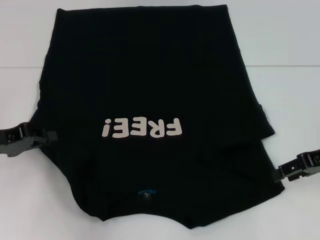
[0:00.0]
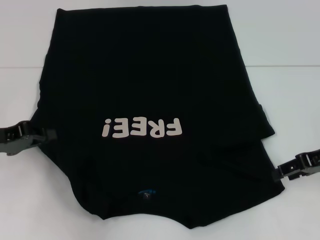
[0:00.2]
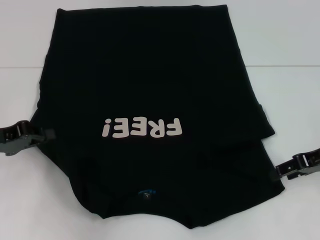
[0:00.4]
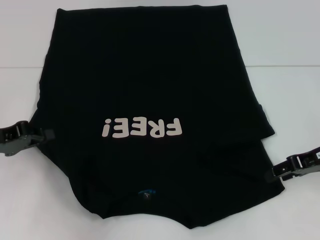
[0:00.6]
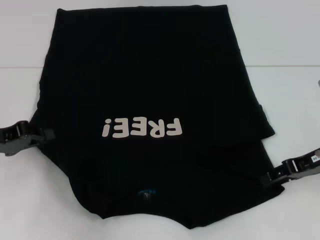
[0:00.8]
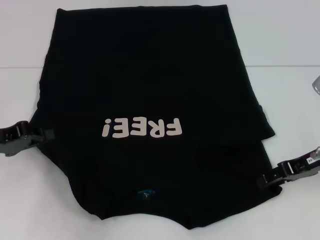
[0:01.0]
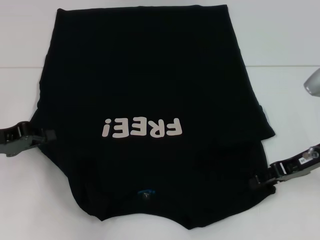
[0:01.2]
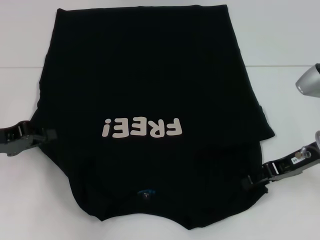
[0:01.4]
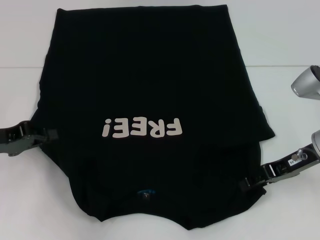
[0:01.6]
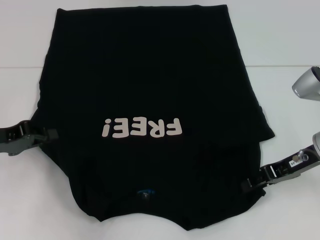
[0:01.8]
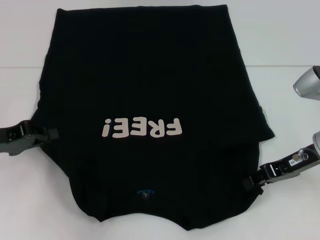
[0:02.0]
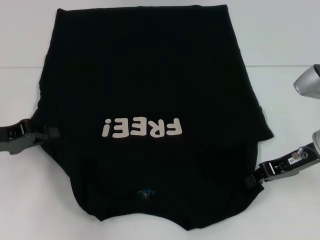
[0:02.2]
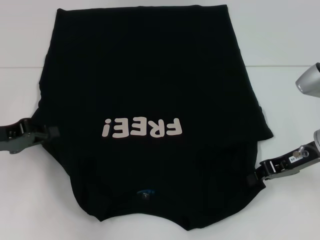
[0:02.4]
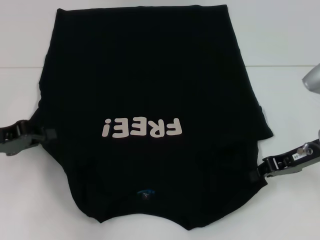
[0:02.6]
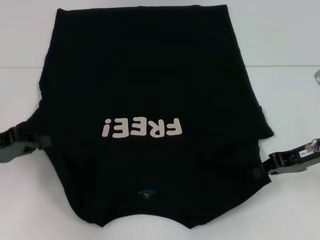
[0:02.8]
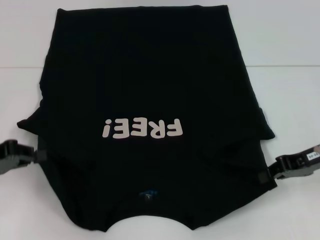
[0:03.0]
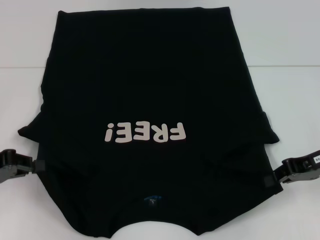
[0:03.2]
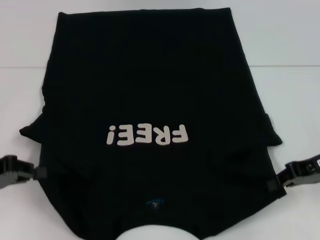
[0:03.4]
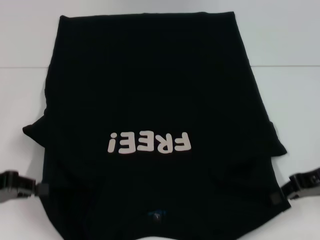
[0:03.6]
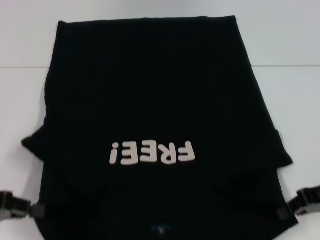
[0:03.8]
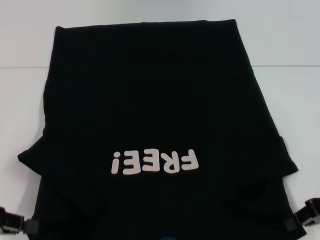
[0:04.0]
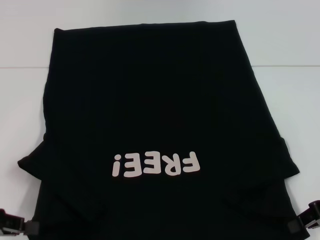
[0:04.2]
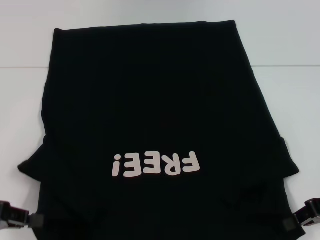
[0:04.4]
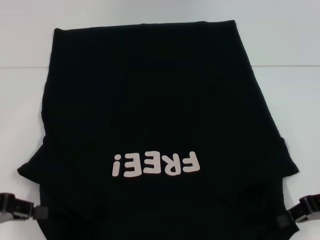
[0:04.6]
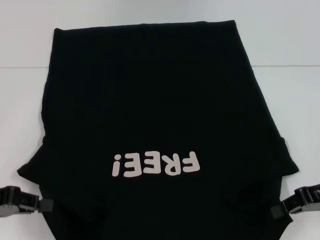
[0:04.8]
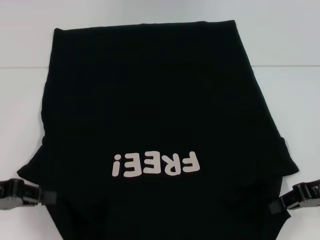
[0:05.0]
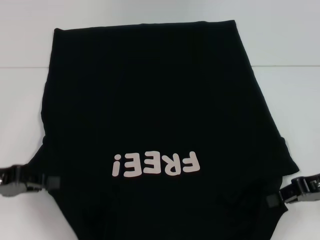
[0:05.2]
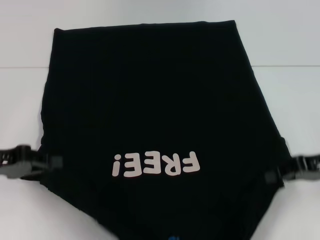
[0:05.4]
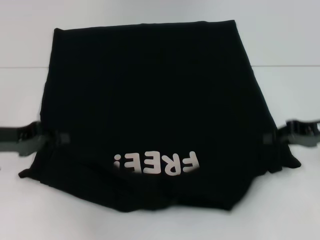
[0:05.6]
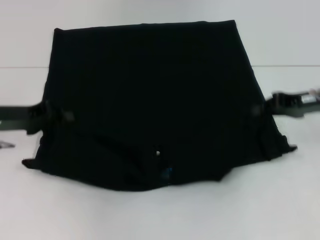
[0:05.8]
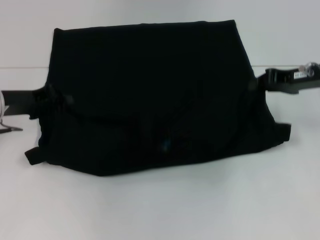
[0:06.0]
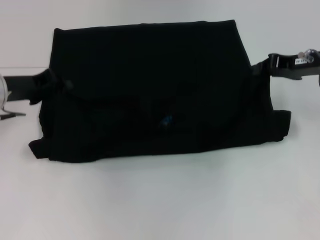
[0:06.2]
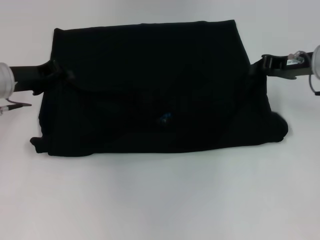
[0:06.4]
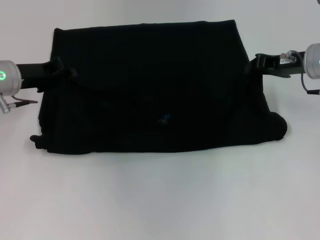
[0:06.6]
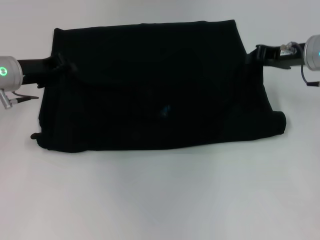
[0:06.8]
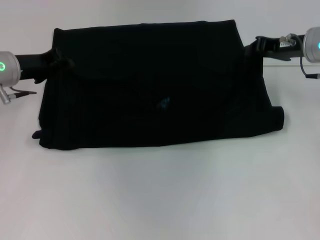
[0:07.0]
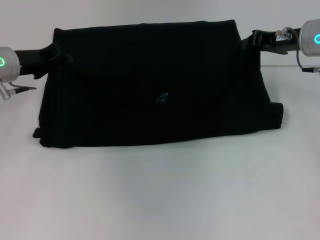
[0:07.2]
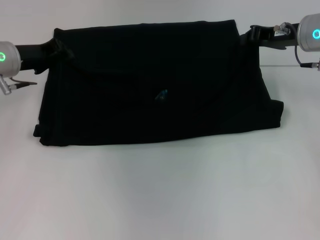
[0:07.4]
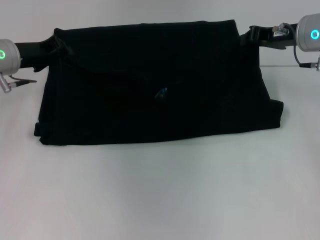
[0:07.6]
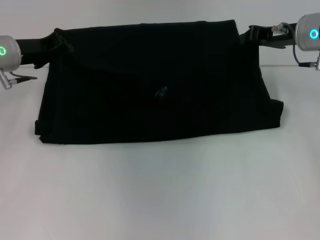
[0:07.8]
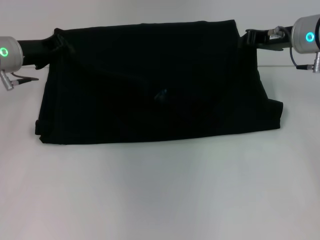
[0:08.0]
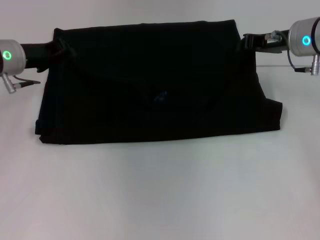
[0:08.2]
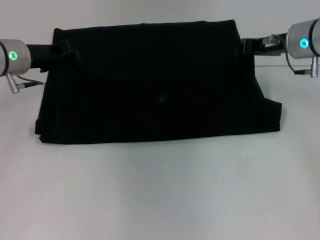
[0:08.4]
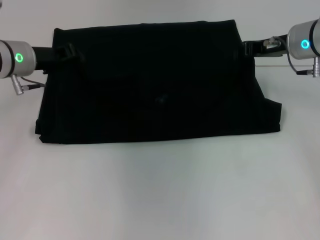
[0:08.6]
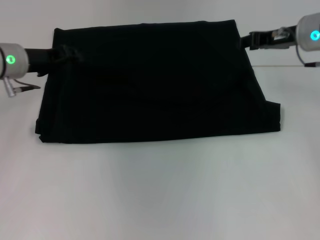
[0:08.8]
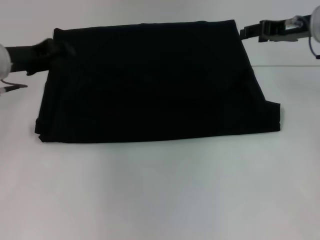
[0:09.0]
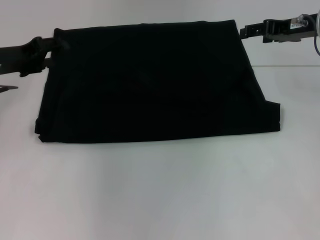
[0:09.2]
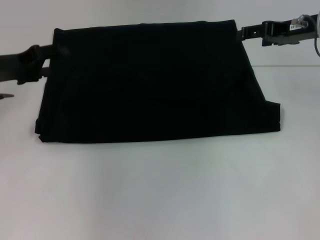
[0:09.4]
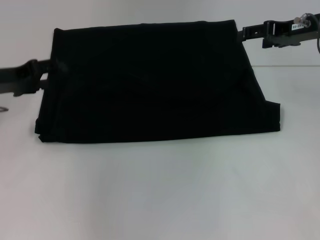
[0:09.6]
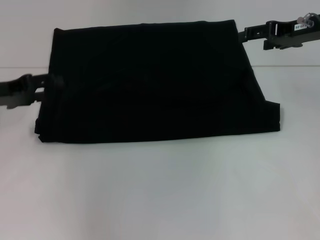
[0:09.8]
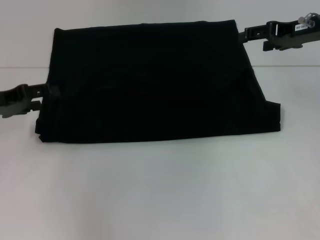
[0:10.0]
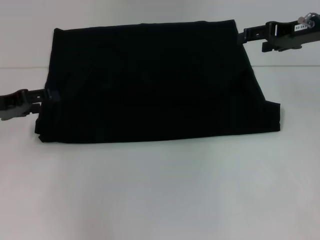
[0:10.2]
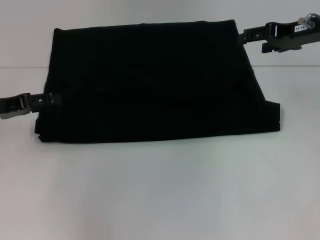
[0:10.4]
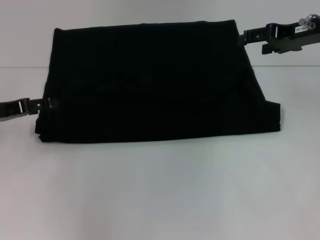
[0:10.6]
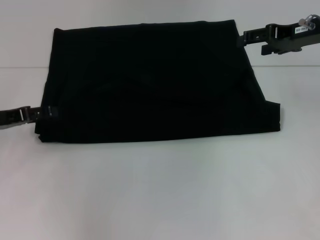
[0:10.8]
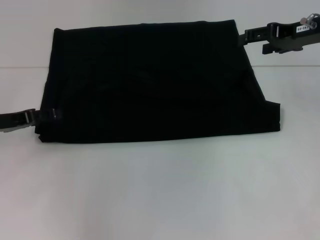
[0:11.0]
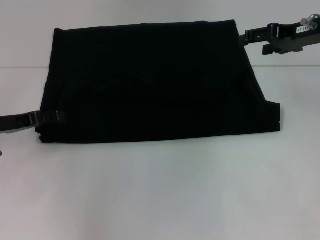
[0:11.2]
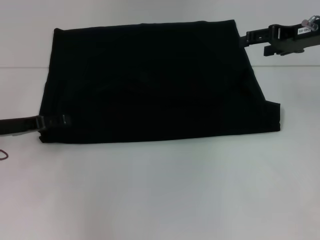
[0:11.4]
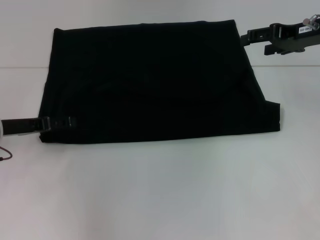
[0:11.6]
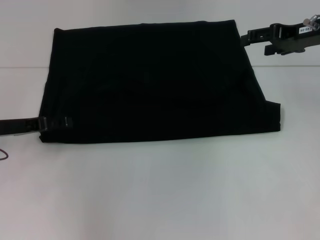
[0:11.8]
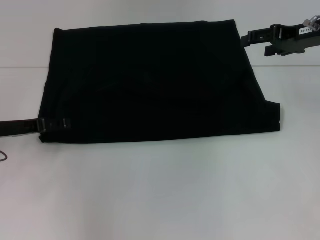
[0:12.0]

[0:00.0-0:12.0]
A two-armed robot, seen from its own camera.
Step, 0.0 to 3.2 s: Grab the bottom left corner with your left hand.
Step, 0.0 to 3.2 s: Grab the bottom right corner with your right hand.
Step, 3.4 to 11.0 s: Fold the clothes with your left hand.
Step, 3.4 to 11.0 s: Fold the clothes with your right hand.
0.0 to 1.6 s: The right gripper moves to the left, approximately 5 cm.
1.6 to 3.0 s: The right gripper closes its fingers.
3.0 to 4.4 s: The right gripper changes place by roughly 5 cm. Meanwhile the left gripper shifts roughly 5 cm backward.
4.4 to 6.0 s: The right gripper travels forward and upward by about 15 cm. Meanwhile the left gripper goes roughly 15 cm forward.
6.0 to 7.6 s: Both grippers travel together forward, approximately 5 cm.
7.6 to 9.0 s: The right gripper opens.
9.0 to 10.4 s: The right gripper opens. The left gripper goes about 5 cm backward, and opens its fingers.
10.4 to 12.0 s: There are only small adjustments of the grippers.

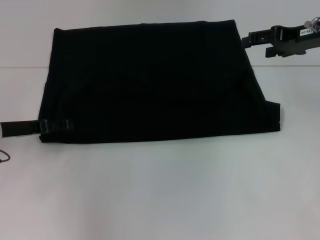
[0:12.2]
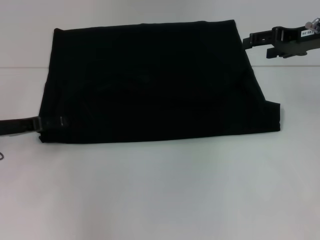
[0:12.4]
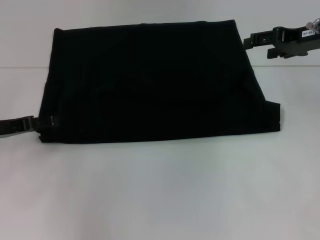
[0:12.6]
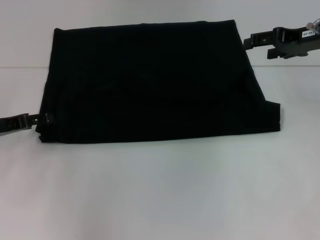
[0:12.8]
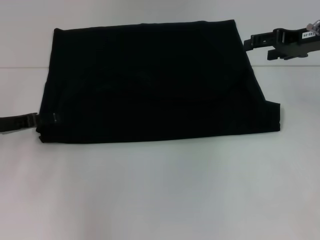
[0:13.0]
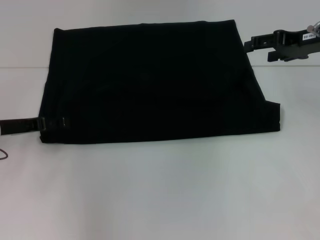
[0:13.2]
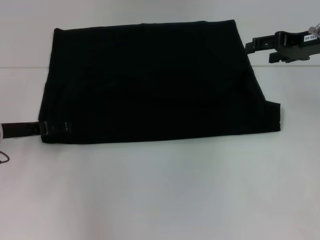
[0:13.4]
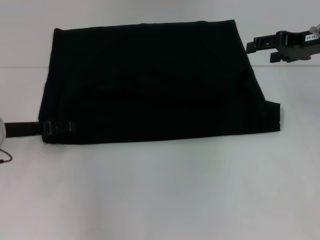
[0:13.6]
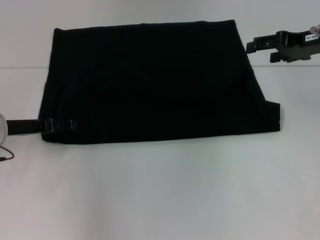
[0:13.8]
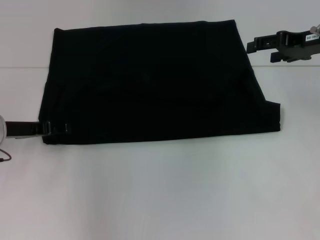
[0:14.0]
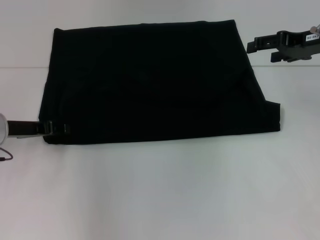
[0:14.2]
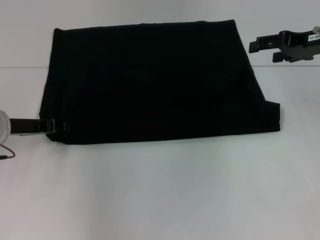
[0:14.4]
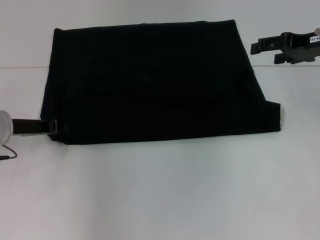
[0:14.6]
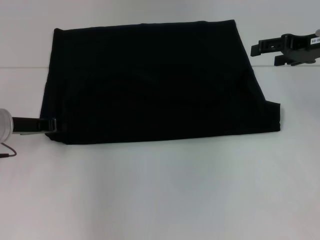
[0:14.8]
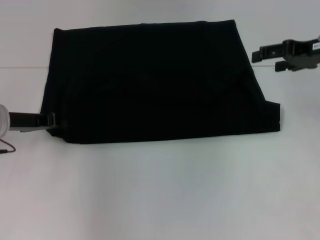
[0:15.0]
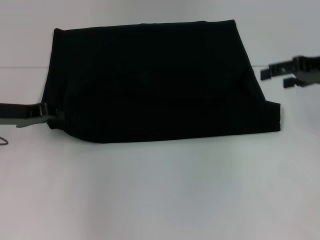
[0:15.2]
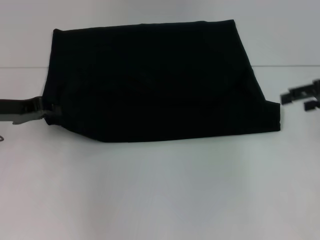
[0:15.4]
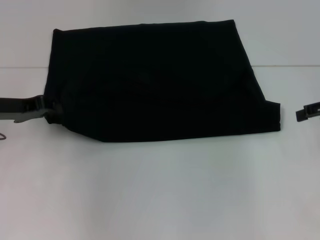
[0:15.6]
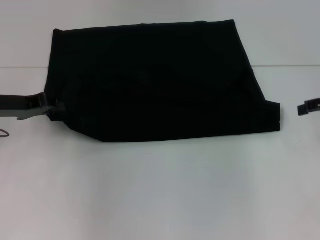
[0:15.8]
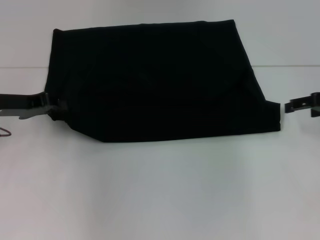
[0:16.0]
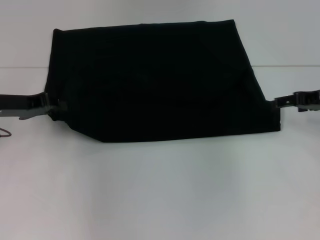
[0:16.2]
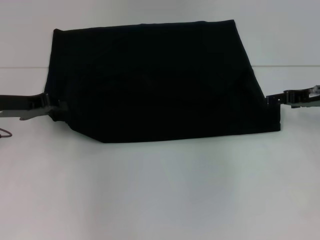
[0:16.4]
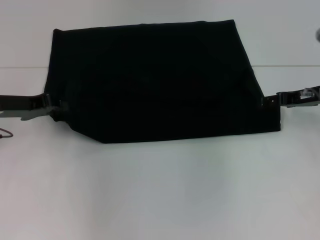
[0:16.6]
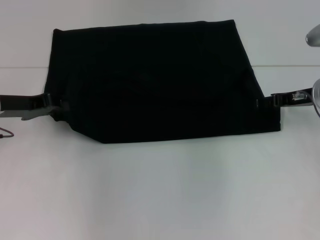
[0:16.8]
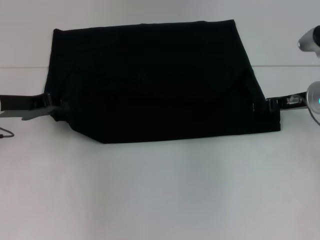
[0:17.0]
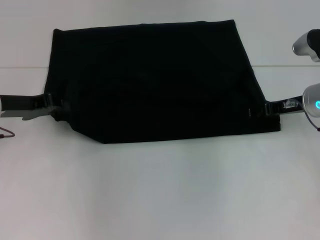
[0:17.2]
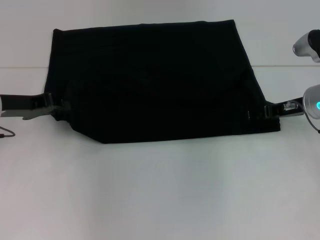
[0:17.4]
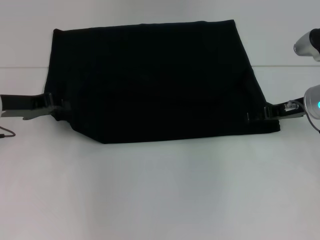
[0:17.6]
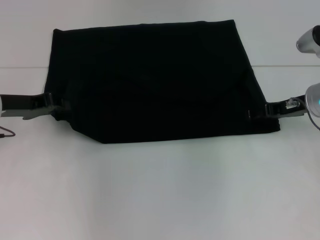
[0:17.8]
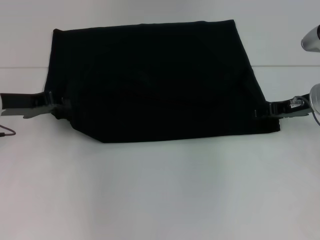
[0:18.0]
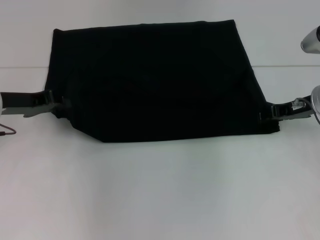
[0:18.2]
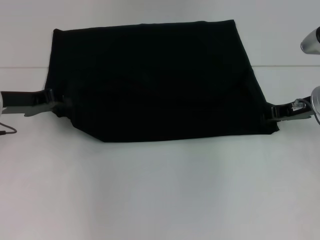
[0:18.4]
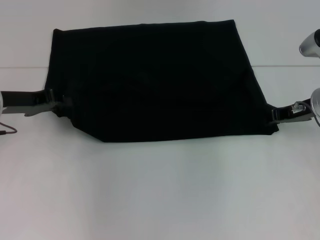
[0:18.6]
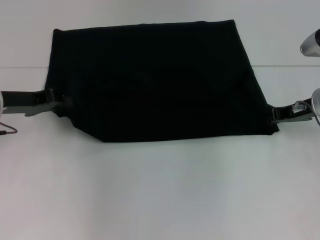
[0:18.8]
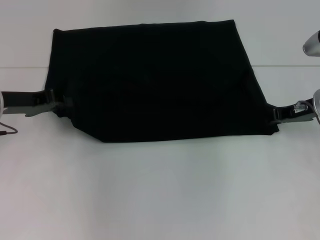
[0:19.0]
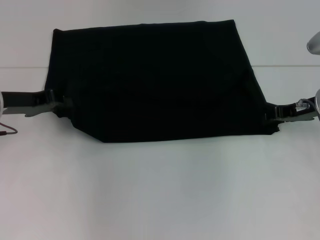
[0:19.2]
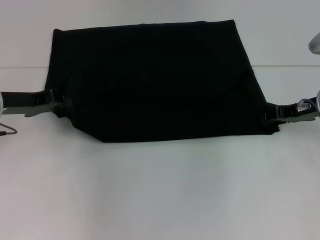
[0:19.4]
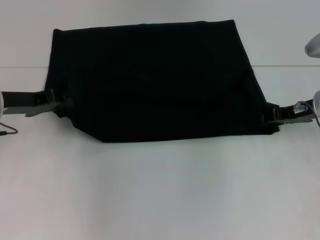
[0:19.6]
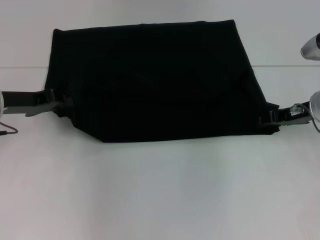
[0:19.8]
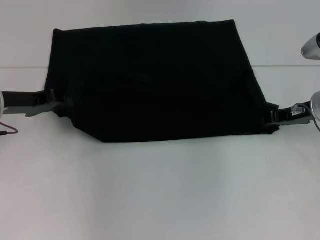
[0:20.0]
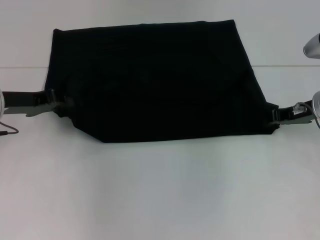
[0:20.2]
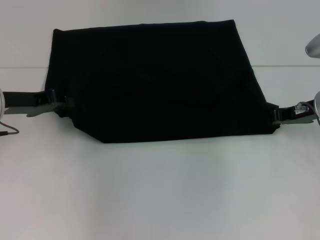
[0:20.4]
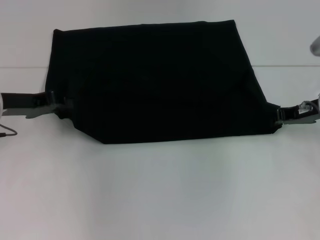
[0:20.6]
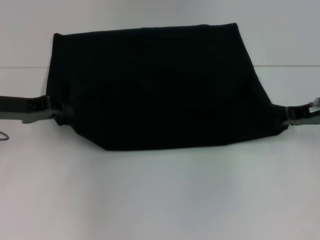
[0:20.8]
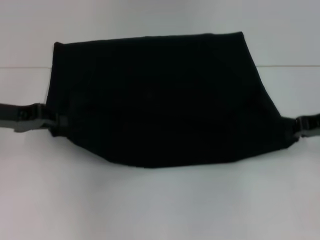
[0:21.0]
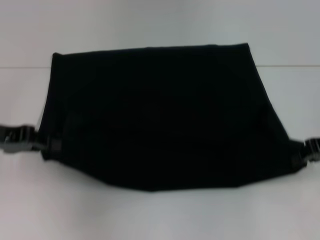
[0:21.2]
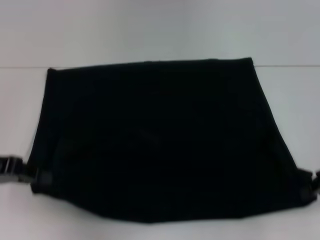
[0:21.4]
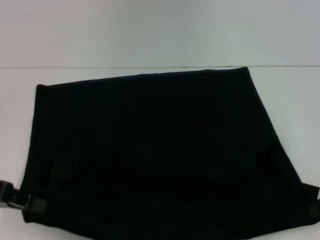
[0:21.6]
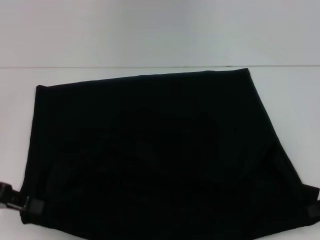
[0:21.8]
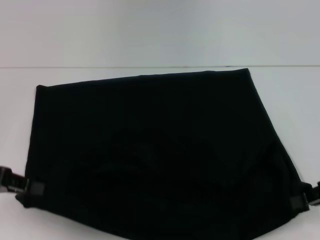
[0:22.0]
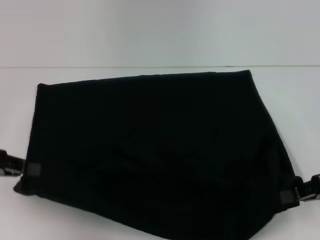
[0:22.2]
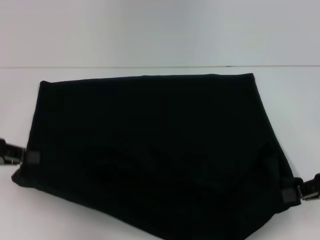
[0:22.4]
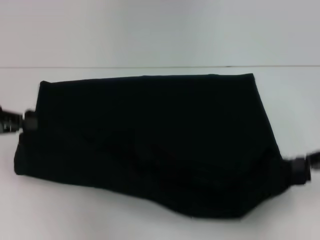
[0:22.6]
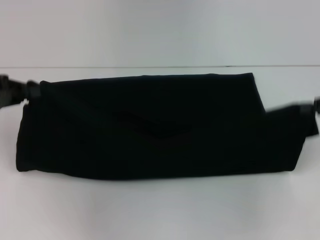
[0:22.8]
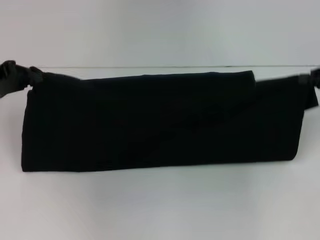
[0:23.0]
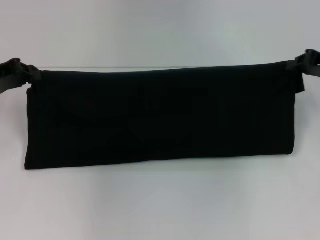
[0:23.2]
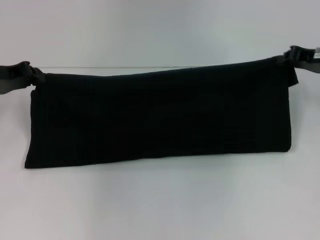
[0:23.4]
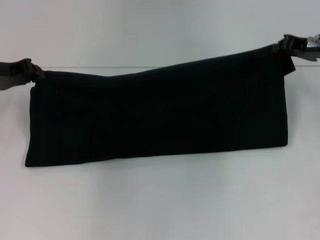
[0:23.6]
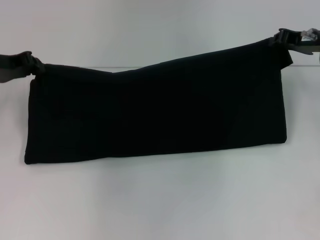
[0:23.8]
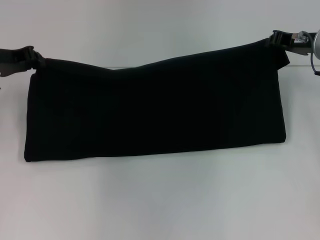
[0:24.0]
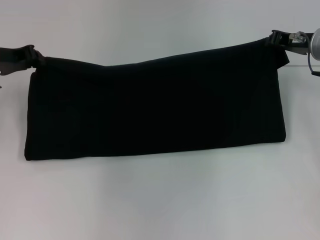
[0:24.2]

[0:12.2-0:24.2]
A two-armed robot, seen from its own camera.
Step, 12.2 to 21.4 s: Pull the clothes with your left hand.
Step, 12.2 to 21.4 s: Pull the clothes with your right hand.
12.2 to 13.8 s: There are only small adjustments of the grippers.
13.8 to 15.2 s: The left gripper closes.
15.2 to 16.6 s: The right gripper heads downward, covering about 10 cm.
16.6 to 18.2 s: The grippers stay close to where they were, moving slightly.
18.2 to 19.8 s: The right gripper closes, then opens again.
19.8 to 21.2 s: The right gripper travels backward by some 5 cm, and closes. Meanwhile the left gripper moves some 5 cm.
21.2 to 22.6 s: The right gripper is displaced backward by some 5 cm.
22.6 to 24.2 s: The left gripper heads forward, covering approximately 10 cm, while the right gripper is displaced forward and to the left by roughly 20 cm.
